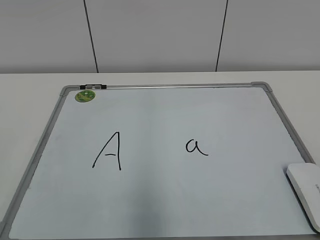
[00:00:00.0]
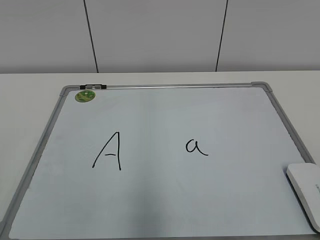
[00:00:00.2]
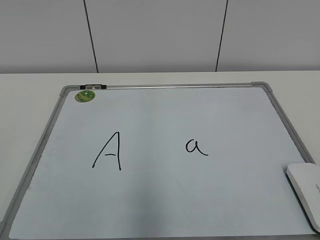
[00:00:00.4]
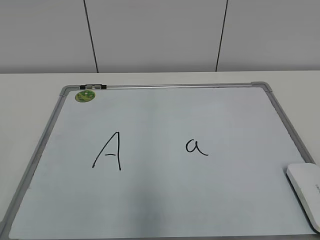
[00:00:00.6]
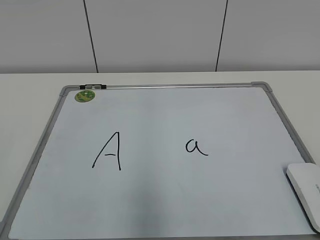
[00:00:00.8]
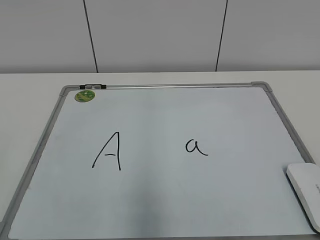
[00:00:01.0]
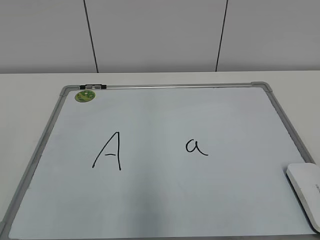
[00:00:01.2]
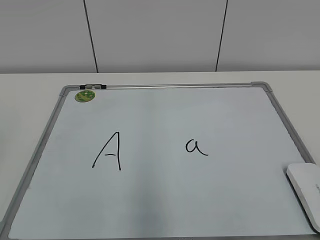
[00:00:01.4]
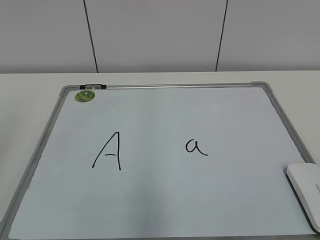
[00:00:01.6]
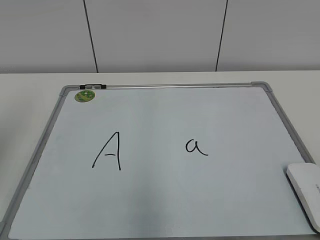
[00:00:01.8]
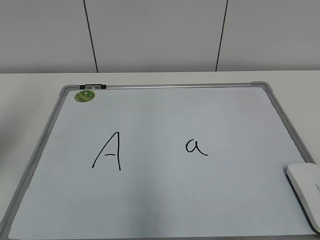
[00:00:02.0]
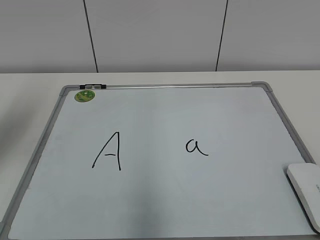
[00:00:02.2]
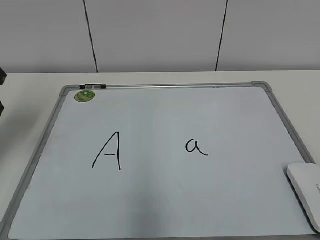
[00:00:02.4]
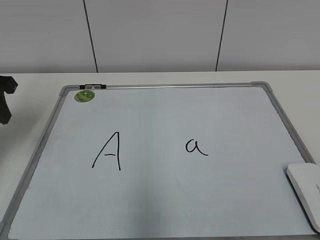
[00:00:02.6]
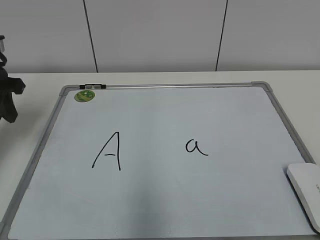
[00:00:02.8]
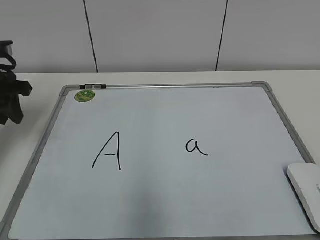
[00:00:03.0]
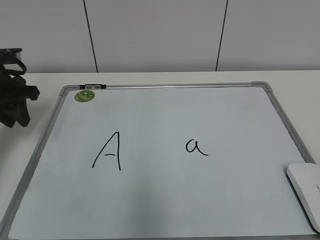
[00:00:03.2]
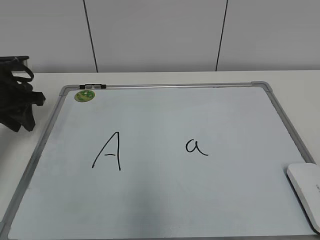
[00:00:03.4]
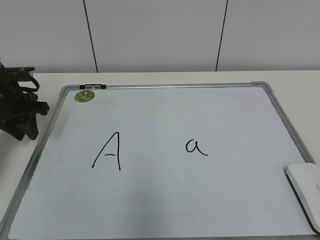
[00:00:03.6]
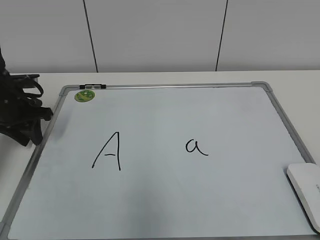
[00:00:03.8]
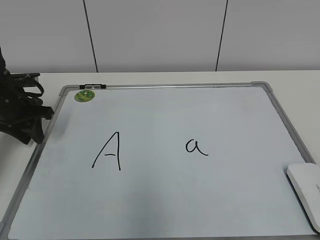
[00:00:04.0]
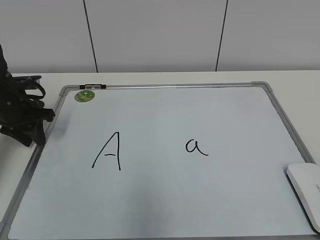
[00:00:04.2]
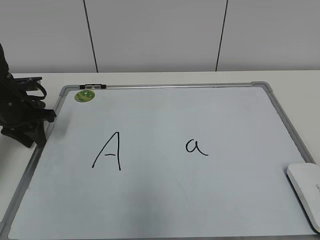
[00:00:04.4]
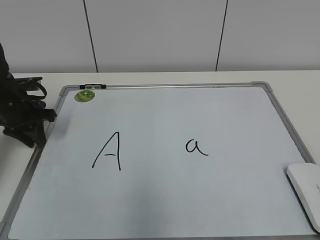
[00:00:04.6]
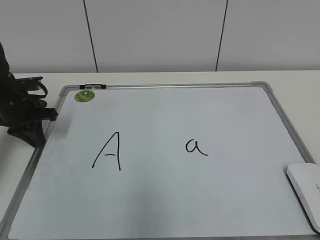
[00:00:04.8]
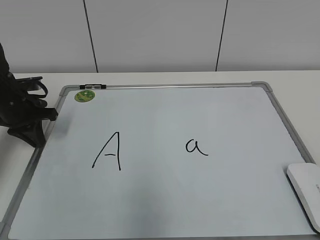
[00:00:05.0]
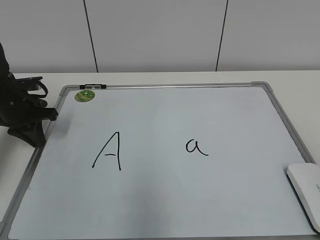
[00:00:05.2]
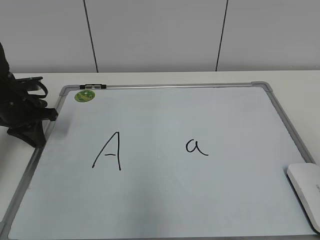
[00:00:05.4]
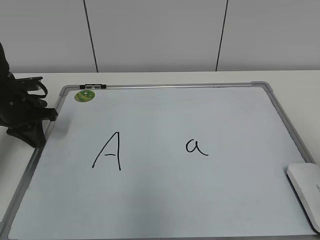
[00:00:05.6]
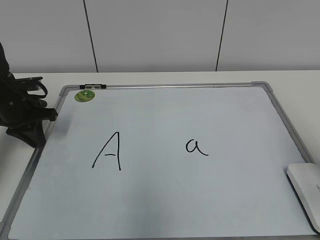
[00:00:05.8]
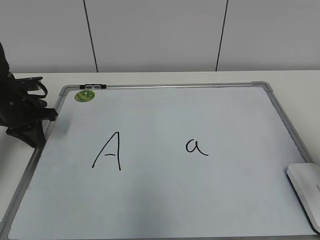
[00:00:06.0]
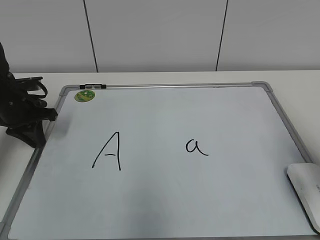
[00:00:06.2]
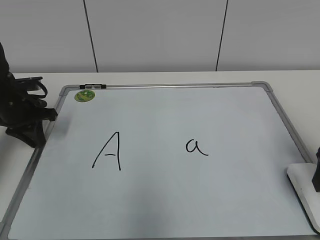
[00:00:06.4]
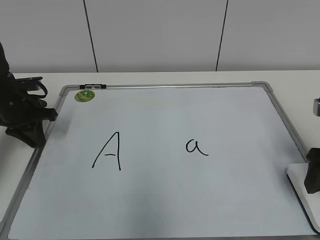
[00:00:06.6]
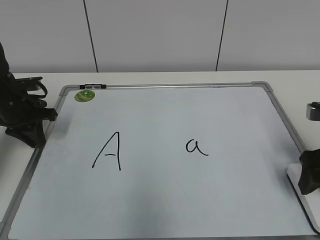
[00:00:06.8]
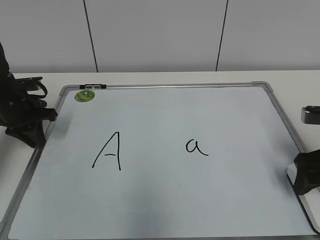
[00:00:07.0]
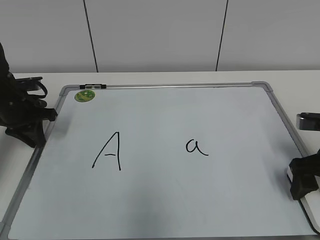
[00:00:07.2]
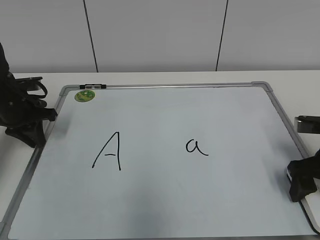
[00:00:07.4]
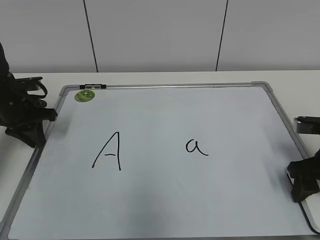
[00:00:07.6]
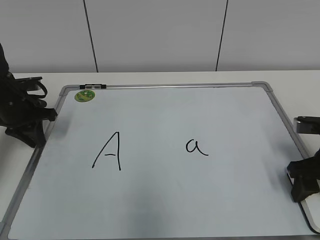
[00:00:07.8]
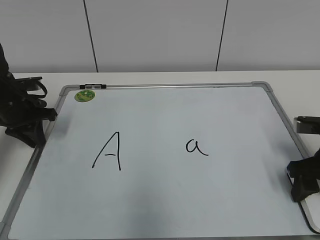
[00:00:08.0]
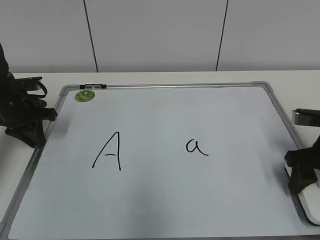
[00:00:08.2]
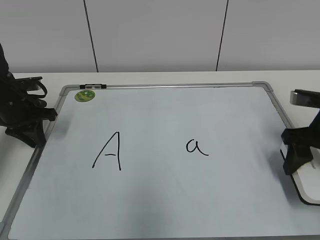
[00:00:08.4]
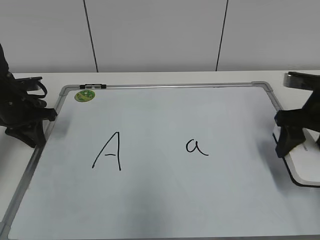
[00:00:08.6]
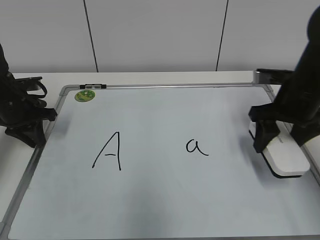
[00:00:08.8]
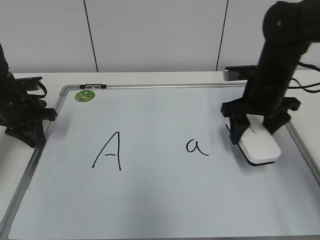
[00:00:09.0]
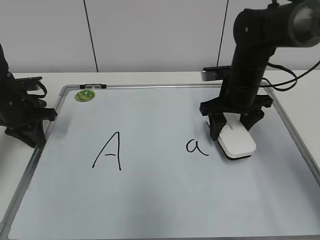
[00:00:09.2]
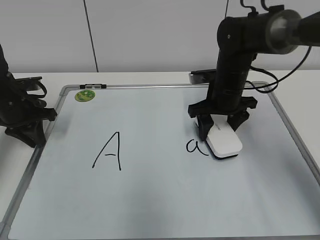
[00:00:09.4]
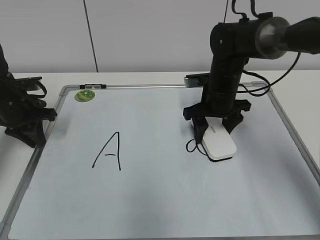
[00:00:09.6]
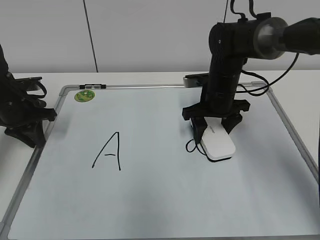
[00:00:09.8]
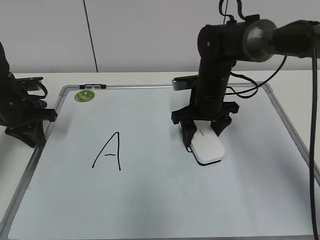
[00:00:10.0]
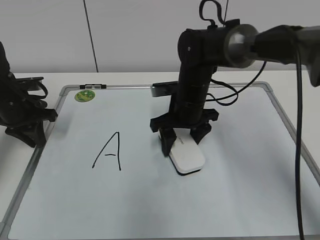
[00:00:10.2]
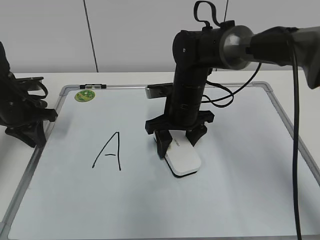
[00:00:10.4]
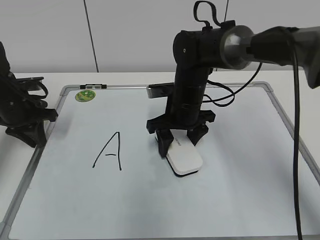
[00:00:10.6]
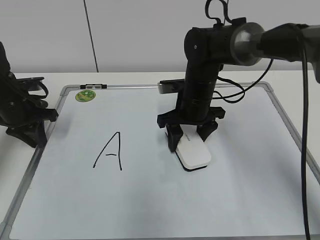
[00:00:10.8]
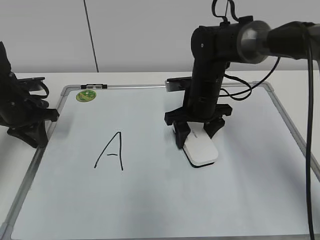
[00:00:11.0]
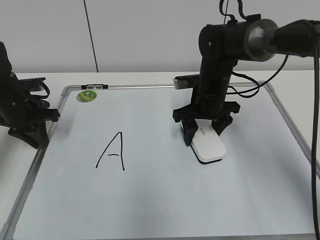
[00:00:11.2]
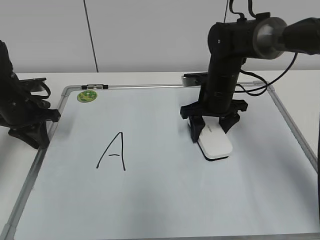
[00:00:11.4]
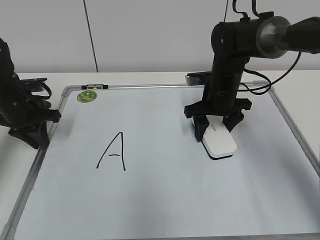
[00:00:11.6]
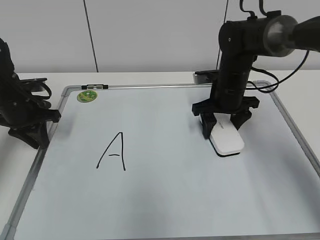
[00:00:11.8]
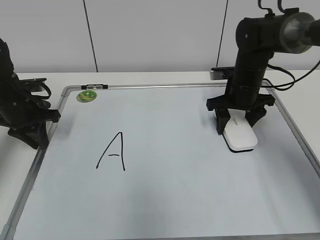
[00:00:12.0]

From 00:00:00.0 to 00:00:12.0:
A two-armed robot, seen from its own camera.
Task of the whole recording: pick up the eraser on the blackboard and erase the letter "a".
Step, from 00:00:00.0 to 00:00:04.8: Hold the drawing board steady with your left hand.
Step, from 00:00:05.2 to 00:00:07.8: Grab the eraser with your right hand.
Step, from 00:00:08.2 to 00:00:11.8: Erase the letter a with your right hand.
From 00:00:01.6 to 00:00:03.0: The left gripper goes about 30 cm forward and downward.
From 00:00:03.0 to 00:00:04.4: The left gripper moves downward, about 10 cm.
From 00:00:04.4 to 00:00:06.0: The right gripper goes roughly 20 cm forward.
From 00:00:06.0 to 00:00:07.6: The right gripper is displaced downward and forward by about 15 cm, and opens, then closes again.
From 00:00:07.6 to 00:00:09.0: The right gripper goes roughly 15 cm forward, to the left and upward.
From 00:00:09.0 to 00:00:10.4: The right gripper travels to the left by some 15 cm.
From 00:00:10.4 to 00:00:12.0: The right gripper heads to the right, covering roughly 15 cm.

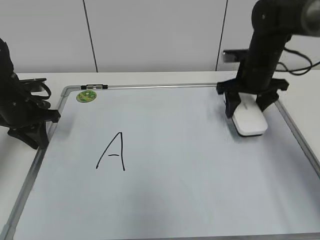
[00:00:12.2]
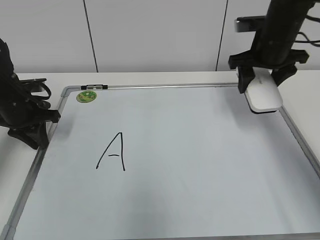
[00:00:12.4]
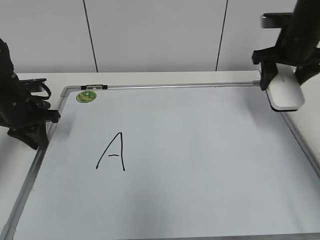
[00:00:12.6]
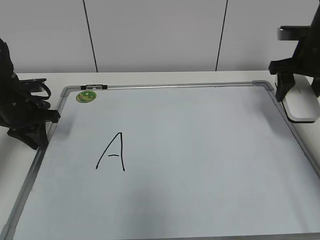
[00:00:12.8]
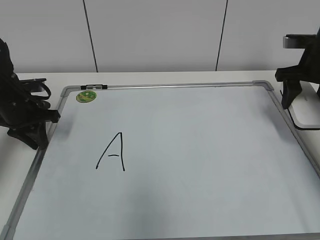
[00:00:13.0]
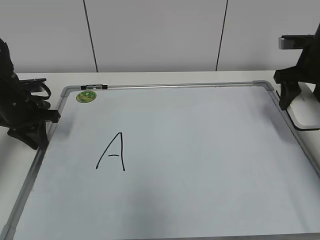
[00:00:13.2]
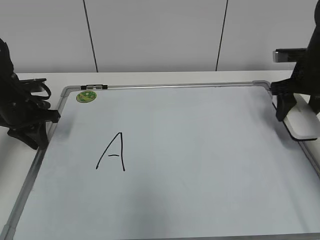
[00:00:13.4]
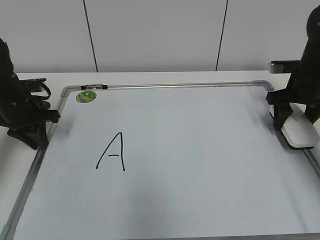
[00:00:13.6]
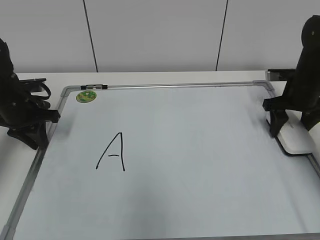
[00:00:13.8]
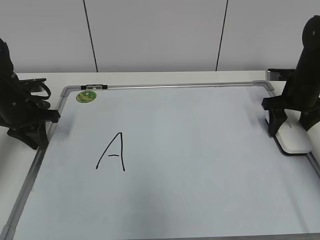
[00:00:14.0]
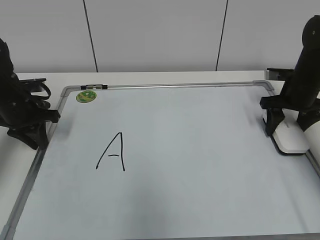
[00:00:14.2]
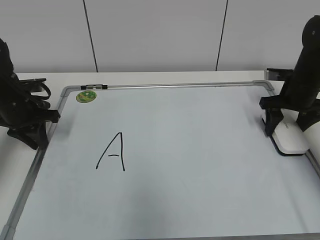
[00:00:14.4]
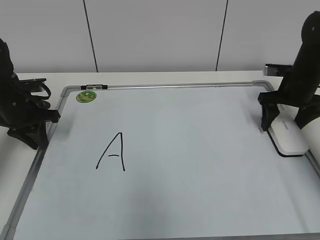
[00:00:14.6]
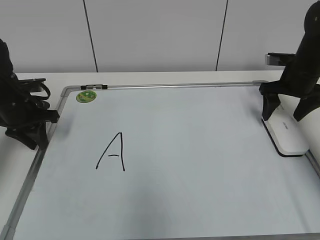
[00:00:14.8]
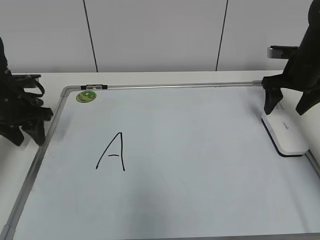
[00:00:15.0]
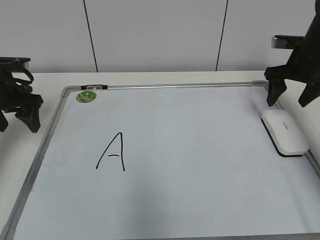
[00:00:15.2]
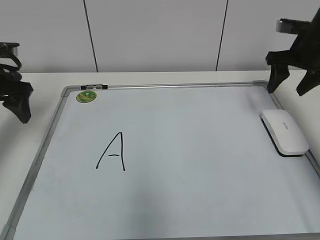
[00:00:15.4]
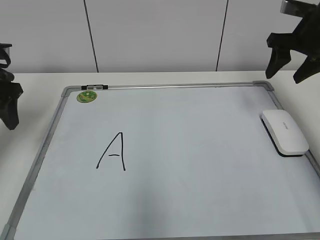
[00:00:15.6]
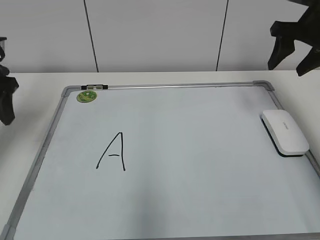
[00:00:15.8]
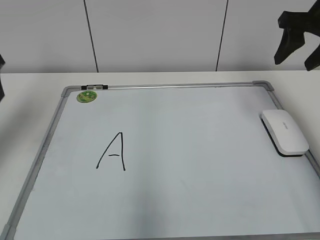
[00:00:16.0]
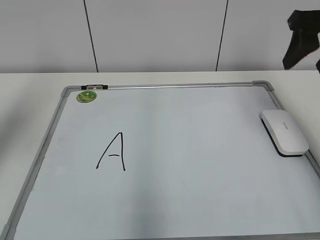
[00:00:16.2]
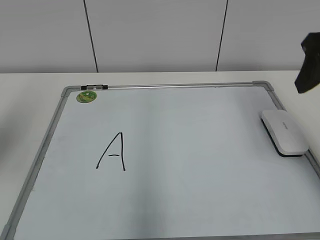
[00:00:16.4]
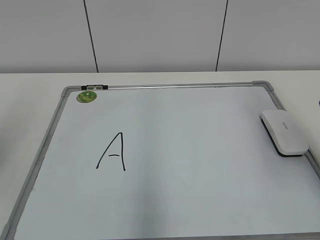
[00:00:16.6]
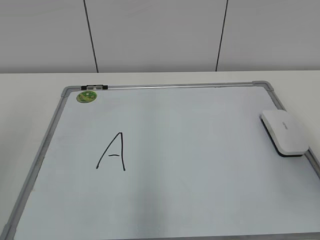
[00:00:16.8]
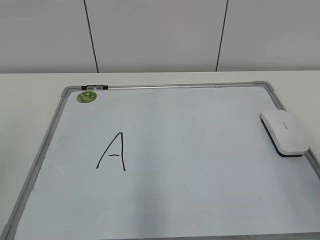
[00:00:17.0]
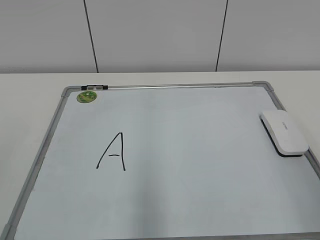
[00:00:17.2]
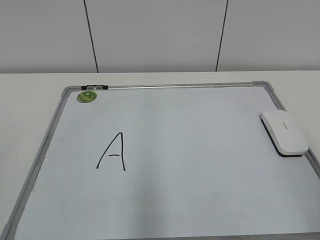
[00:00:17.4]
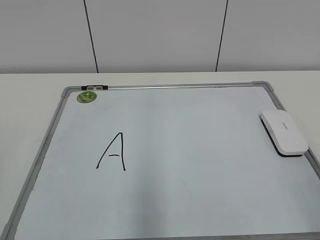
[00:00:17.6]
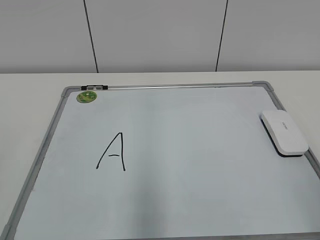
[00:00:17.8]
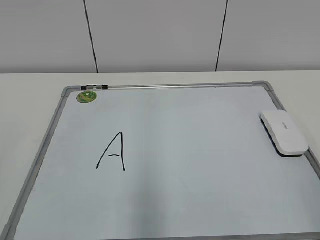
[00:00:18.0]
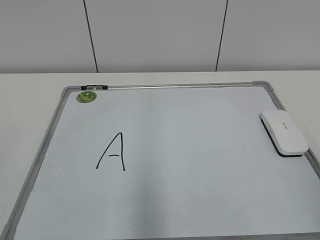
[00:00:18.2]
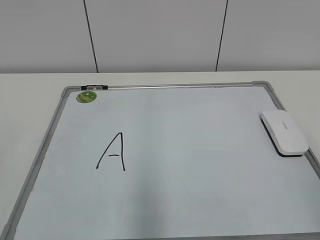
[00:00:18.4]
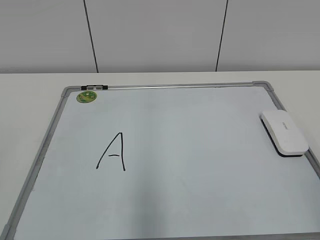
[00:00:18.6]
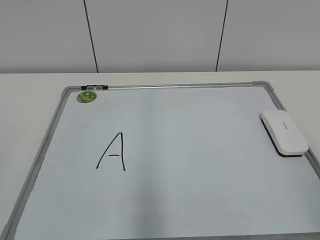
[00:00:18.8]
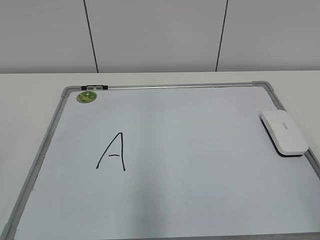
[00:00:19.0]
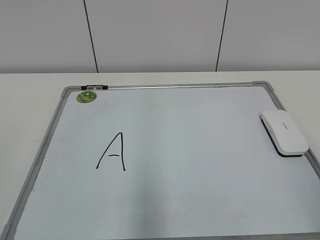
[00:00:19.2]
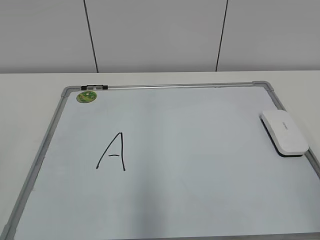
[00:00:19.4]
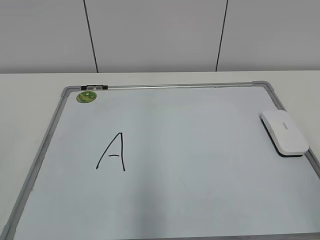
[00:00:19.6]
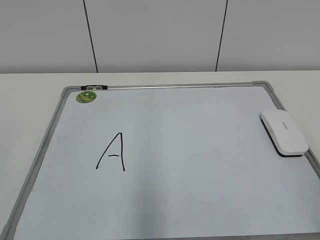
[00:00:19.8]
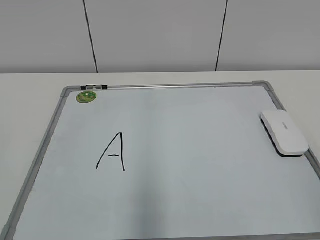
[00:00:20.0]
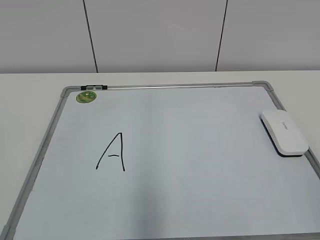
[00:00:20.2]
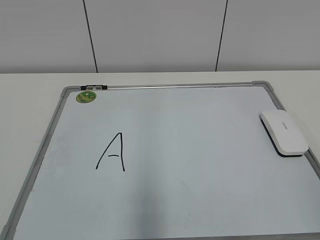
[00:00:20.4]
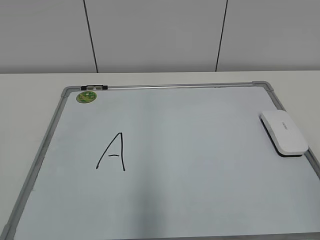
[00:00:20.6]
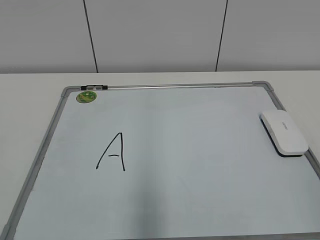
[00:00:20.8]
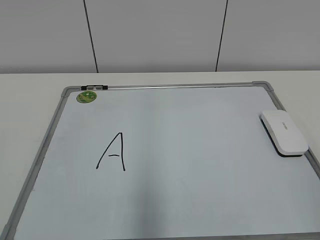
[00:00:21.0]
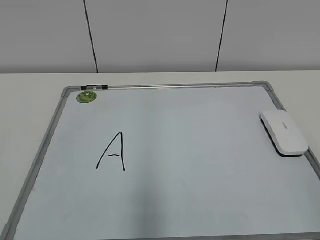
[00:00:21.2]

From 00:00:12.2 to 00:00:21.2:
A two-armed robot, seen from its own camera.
Task of the whole recording: pick up the eraser on the blackboard and erase the letter "a".
Step, from 00:00:12.2 to 00:00:14.4: Put down the eraser with your right hand.
From 00:00:12.2 to 00:00:13.8: The right gripper heads to the right, covering some 10 cm.
From 00:00:13.8 to 00:00:15.2: Both grippers travel together upward, approximately 5 cm. The right gripper opens; the left gripper opens up.
From 00:00:15.2 to 00:00:16.6: Both grippers move backward and upward, roughly 25 cm. The right gripper closes.
From 00:00:16.6 to 00:00:18.2: The right gripper heads backward and downward, covering some 20 cm.
